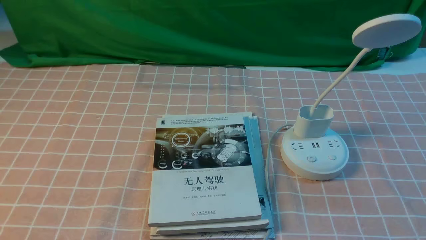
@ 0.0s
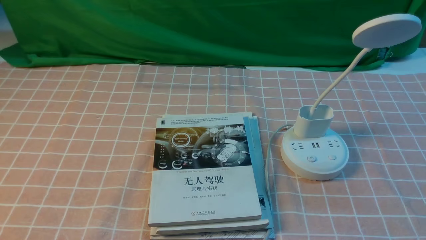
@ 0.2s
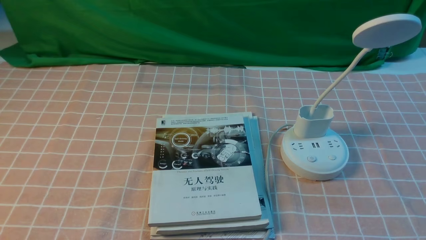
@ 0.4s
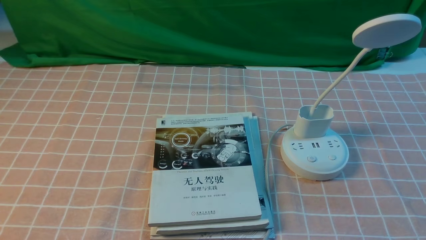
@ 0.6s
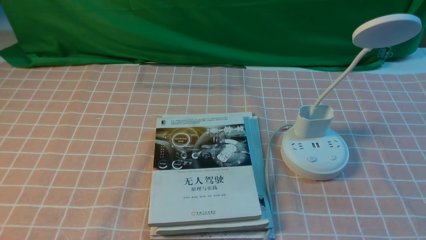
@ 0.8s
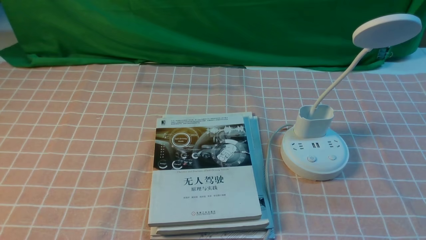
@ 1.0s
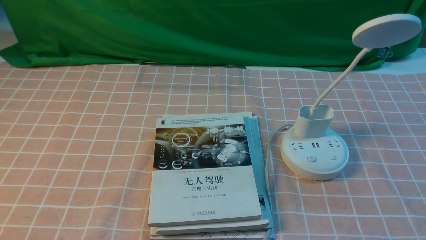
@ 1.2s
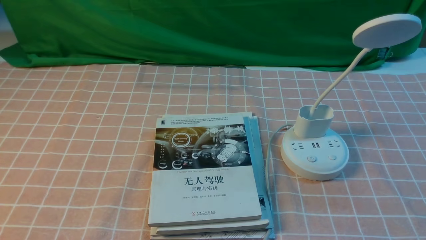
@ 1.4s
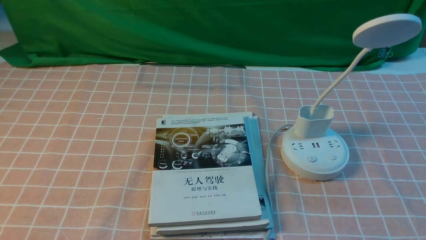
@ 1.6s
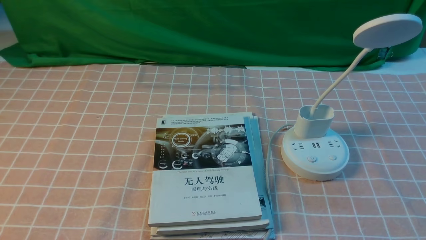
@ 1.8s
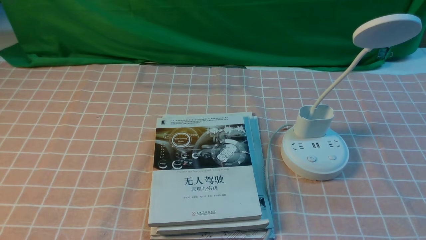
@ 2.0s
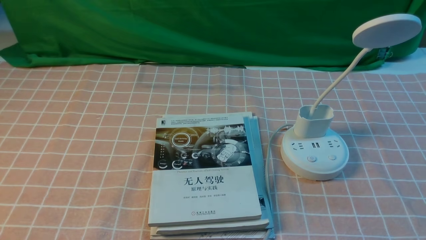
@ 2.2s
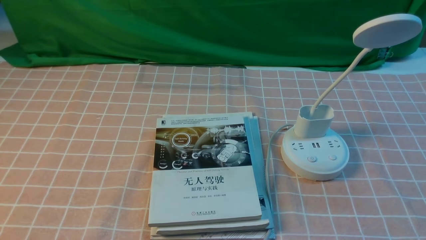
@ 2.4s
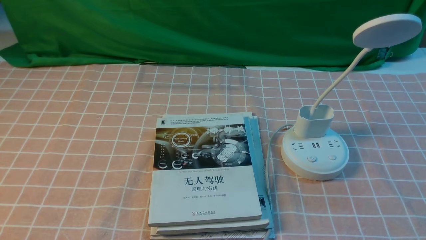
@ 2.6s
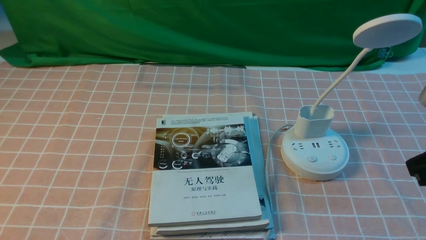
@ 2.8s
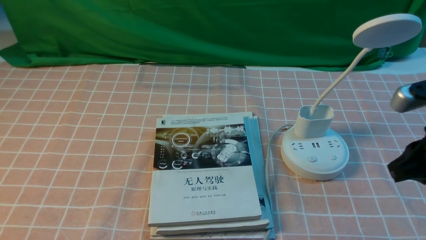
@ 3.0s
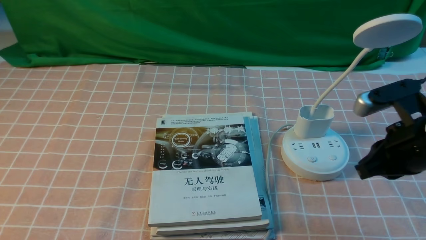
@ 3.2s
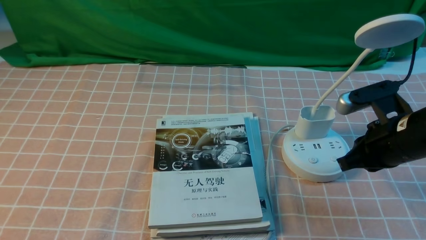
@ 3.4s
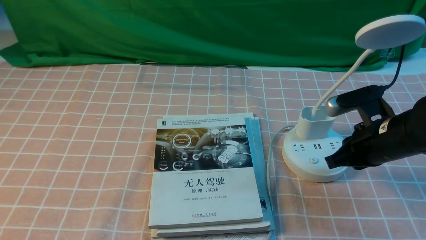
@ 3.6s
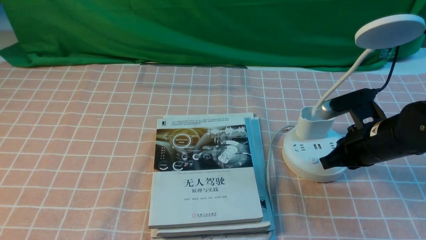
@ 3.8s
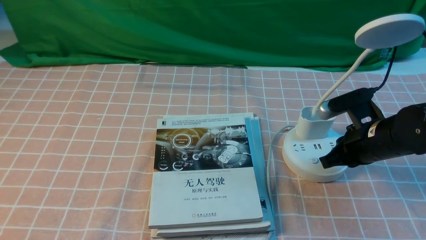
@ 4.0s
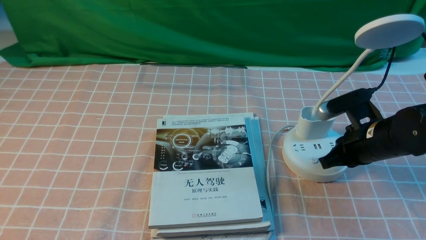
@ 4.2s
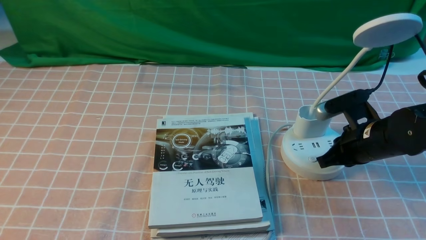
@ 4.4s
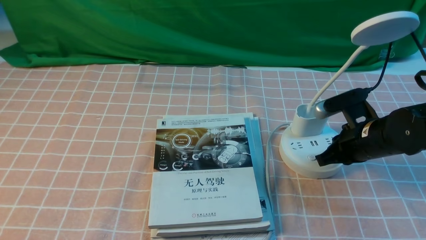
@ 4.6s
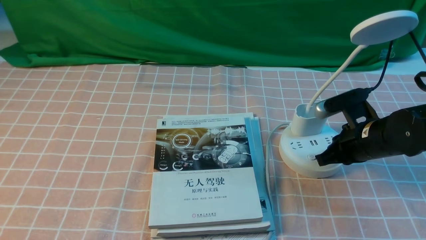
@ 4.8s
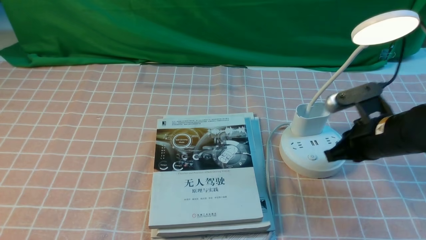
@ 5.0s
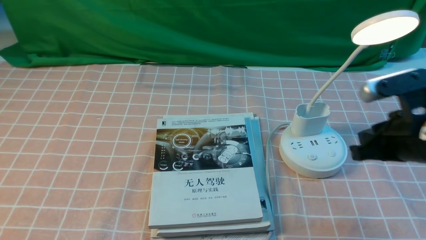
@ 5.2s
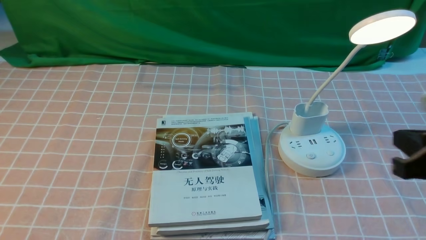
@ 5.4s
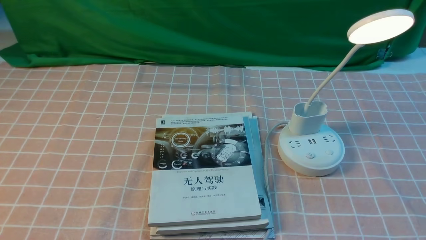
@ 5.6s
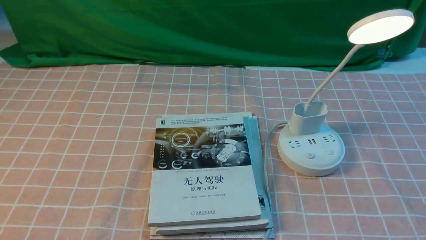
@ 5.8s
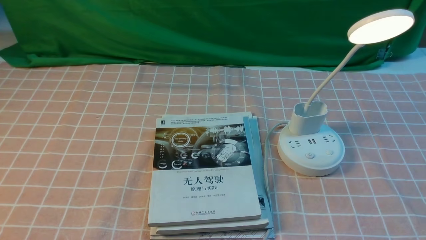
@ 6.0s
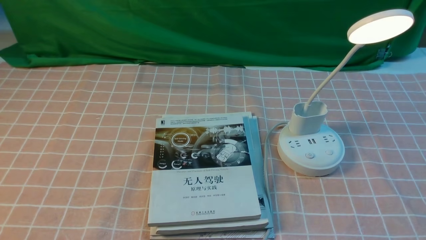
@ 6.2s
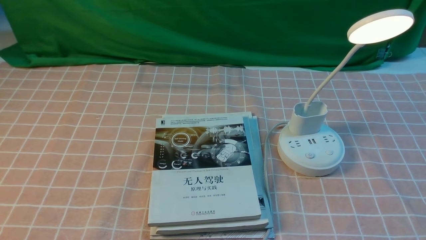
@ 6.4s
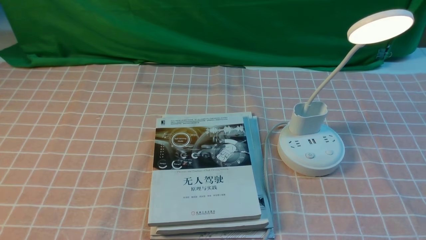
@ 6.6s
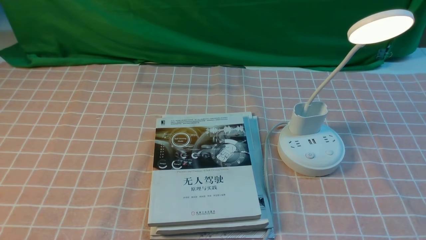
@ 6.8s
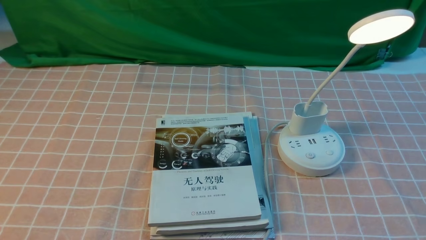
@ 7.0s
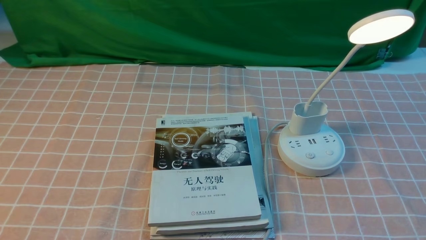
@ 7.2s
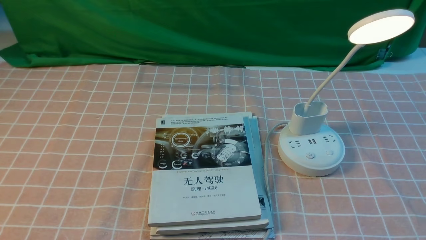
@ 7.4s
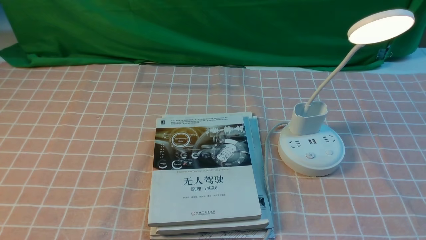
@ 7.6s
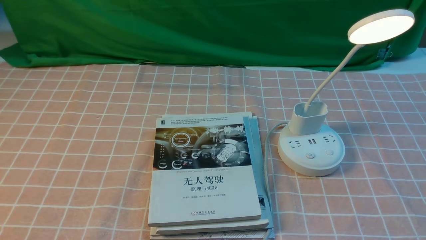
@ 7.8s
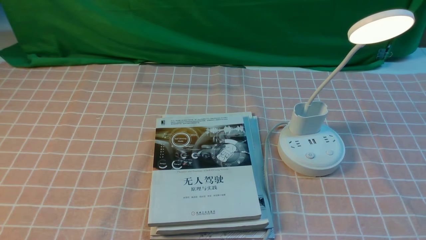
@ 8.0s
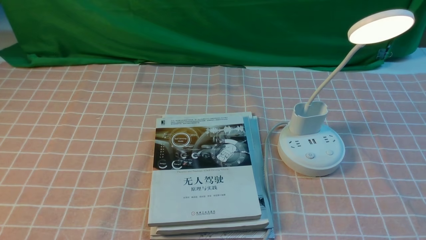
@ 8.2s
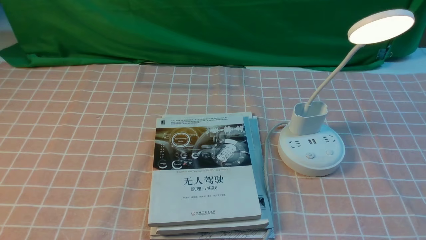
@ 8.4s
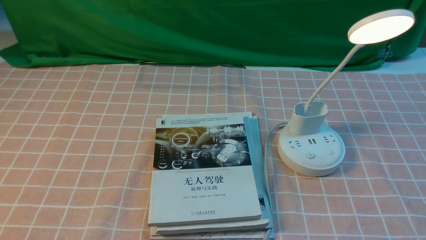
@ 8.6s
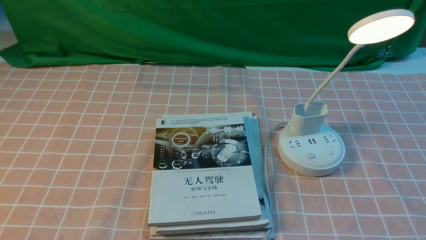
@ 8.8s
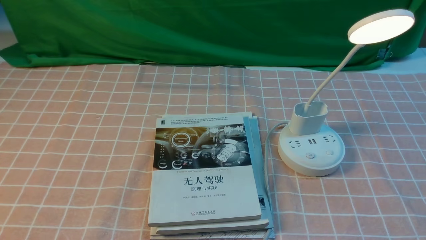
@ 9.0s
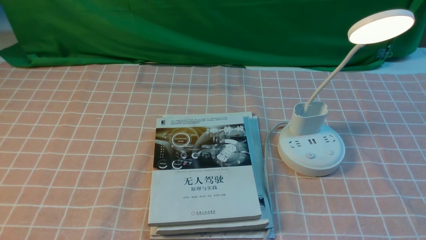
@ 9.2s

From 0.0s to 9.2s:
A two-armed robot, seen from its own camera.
Step, from 0.0s to 5.0s: use the right arm to press the button switch on the lamp holder.
From 1.6s to 3.0s: The right gripper moves forward and upward, roughly 20 cm, and closes its fingers.
From 3.0s to 4.6s: The right gripper moves downward and forward, about 15 cm.
From 4.6s to 6.2s: The right gripper moves backward, about 25 cm.
From 7.6s to 9.2s: Neither gripper changes place.
